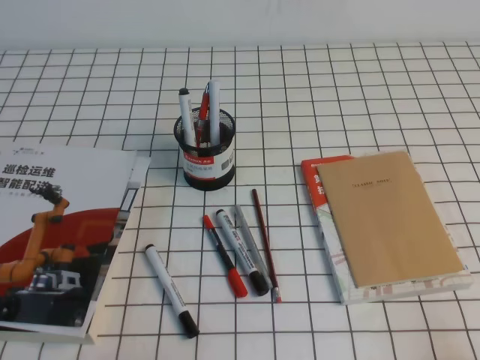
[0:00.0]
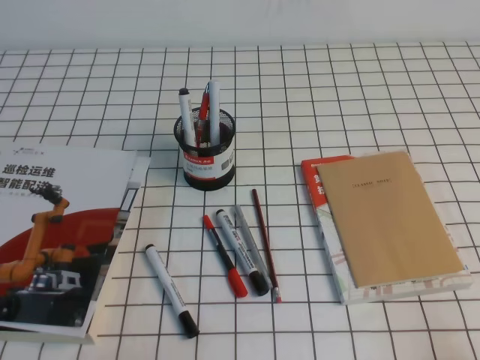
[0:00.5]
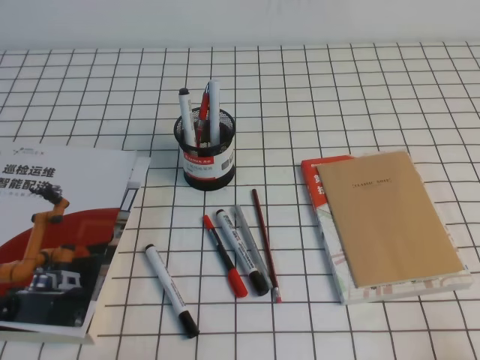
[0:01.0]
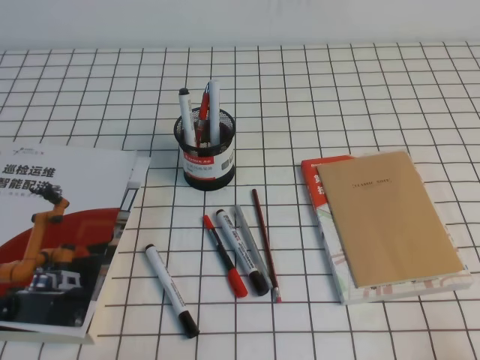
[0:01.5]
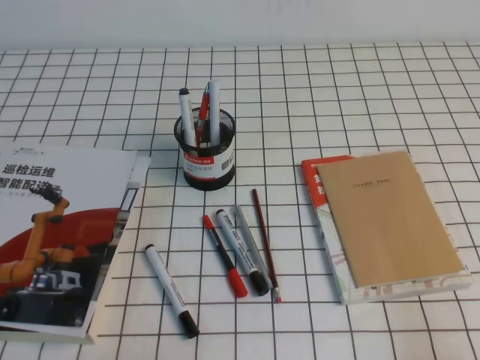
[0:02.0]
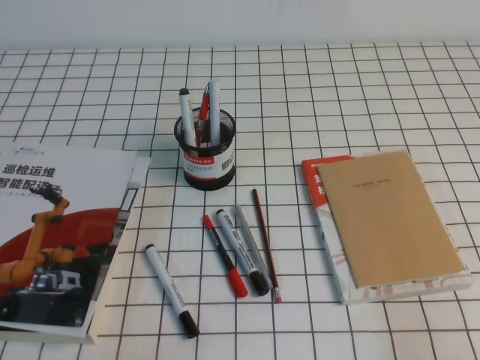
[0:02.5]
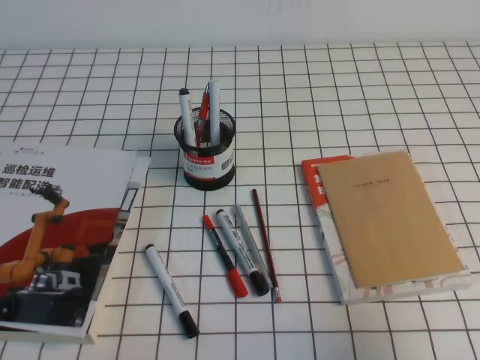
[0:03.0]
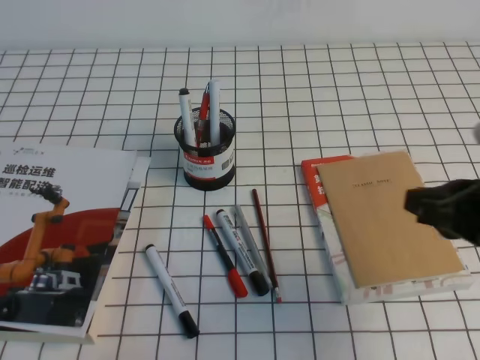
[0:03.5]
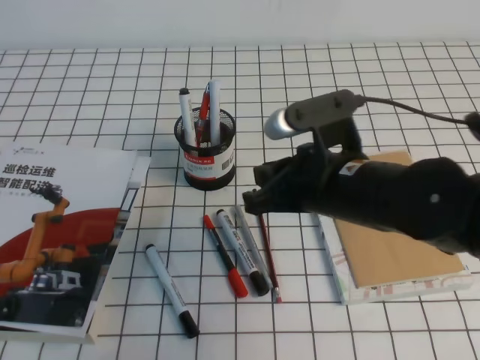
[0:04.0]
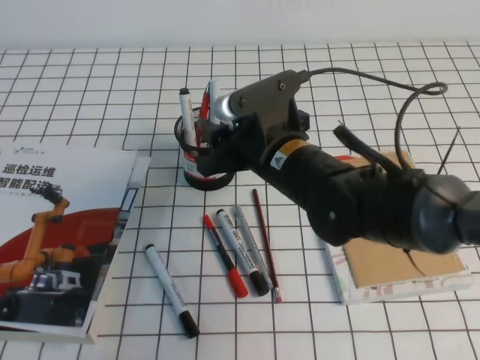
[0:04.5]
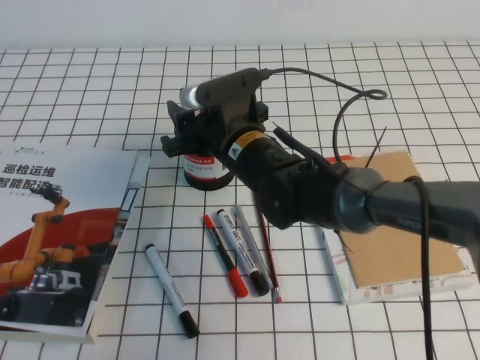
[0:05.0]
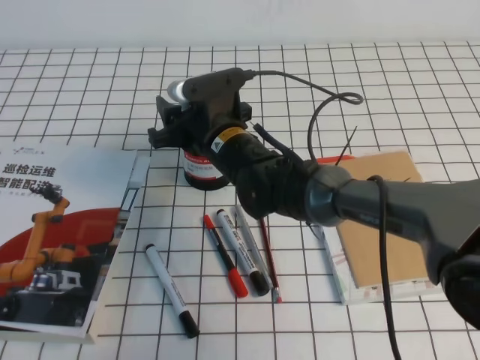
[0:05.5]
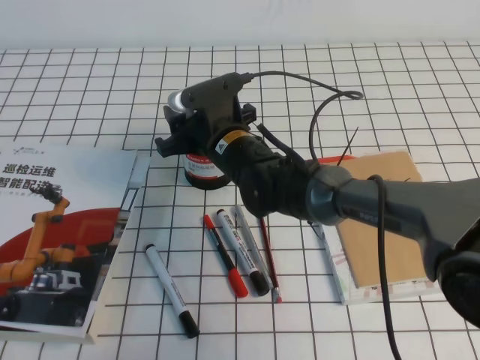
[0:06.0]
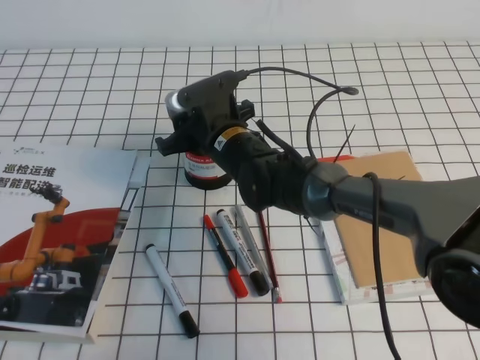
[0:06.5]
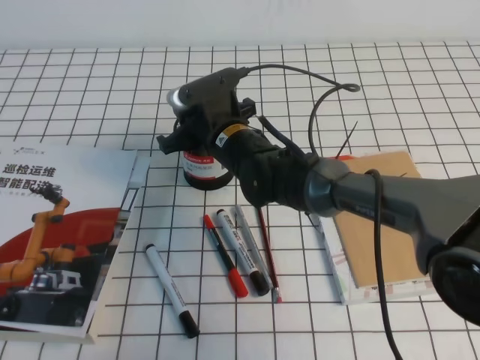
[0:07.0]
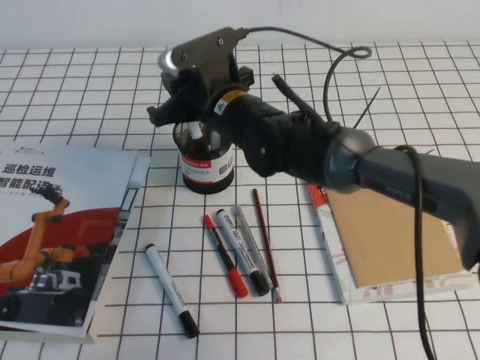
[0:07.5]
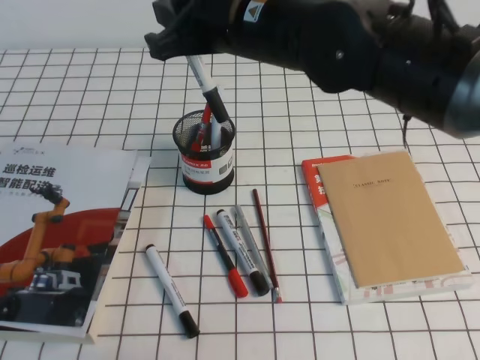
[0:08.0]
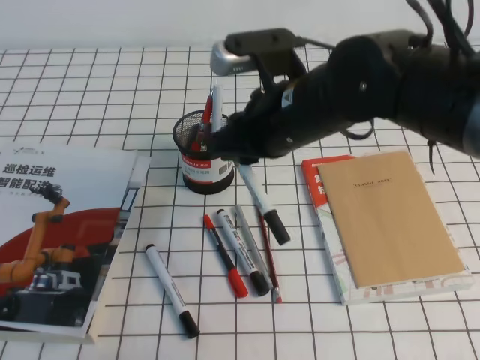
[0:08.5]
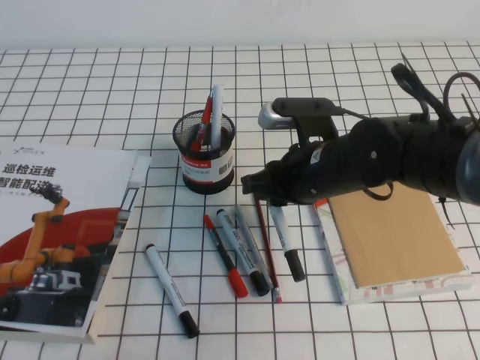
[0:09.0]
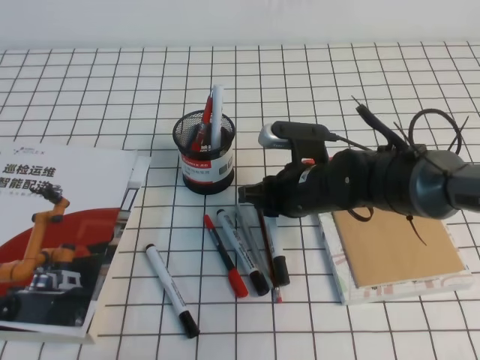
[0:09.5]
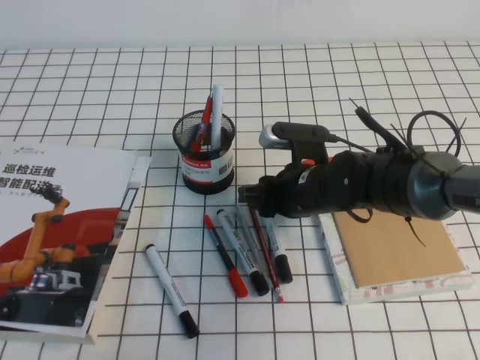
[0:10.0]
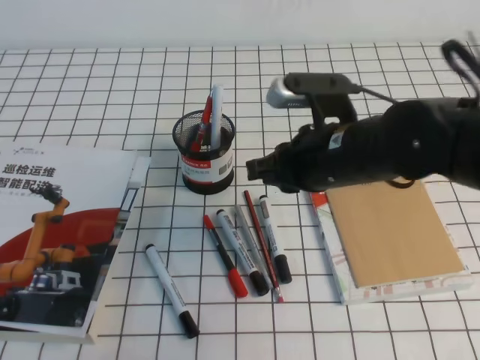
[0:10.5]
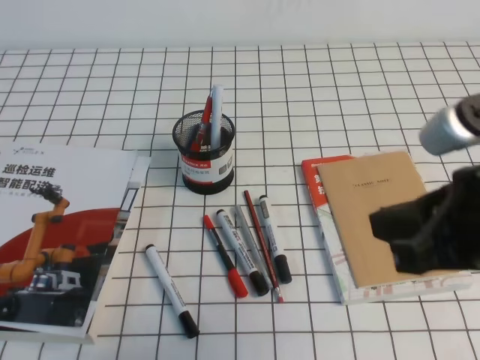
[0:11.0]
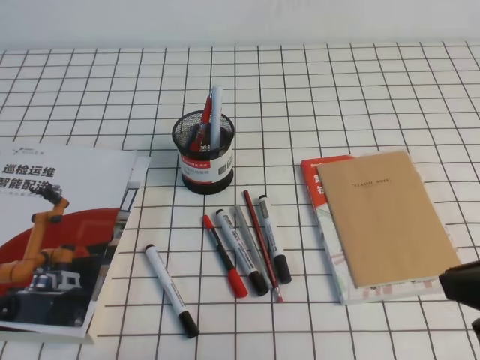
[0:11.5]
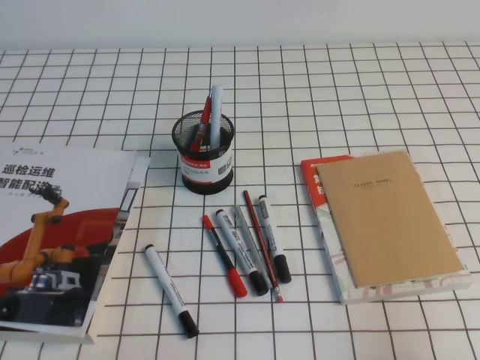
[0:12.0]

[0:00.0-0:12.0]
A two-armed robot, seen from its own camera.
0:02.0 to 0:04.0: The right gripper shifts roughly 30 cm to the left and forward.
0:04.0 to 0:06.0: The right gripper is displaced forward, to the left and downward by about 20 cm, and opens up.
0:06.0 to 0:08.0: The right gripper is displaced upward by about 15 cm, and closes.
0:08.0 to 0:10.0: The right gripper moves downward, some 20 cm.
0:10.0 to 0:12.0: The right gripper shifts about 35 cm backward and to the right, and closes up.

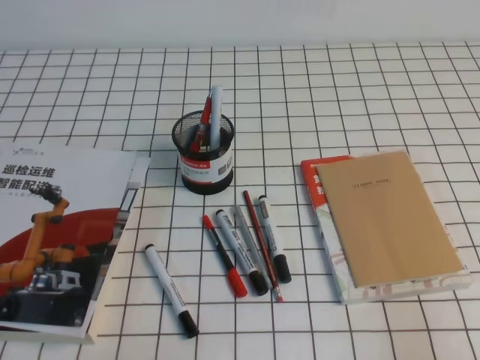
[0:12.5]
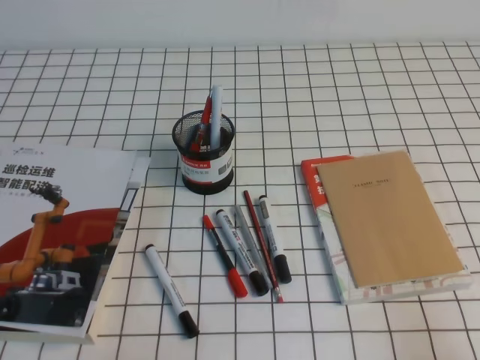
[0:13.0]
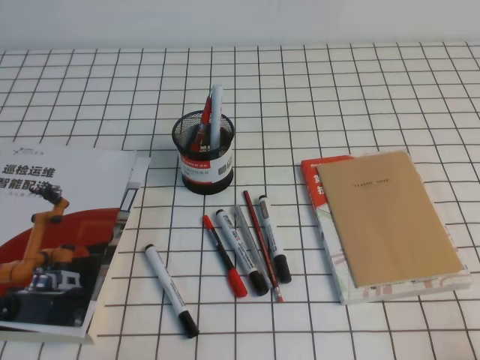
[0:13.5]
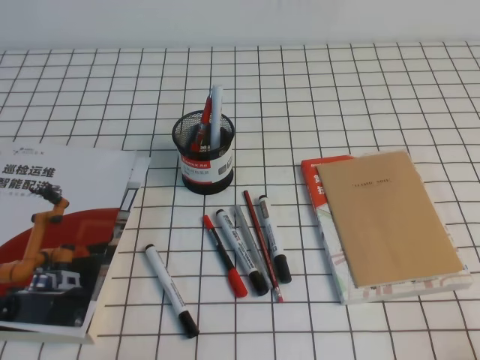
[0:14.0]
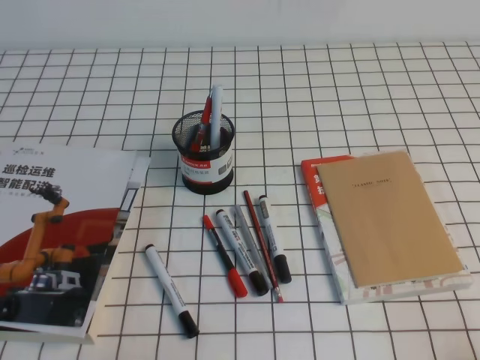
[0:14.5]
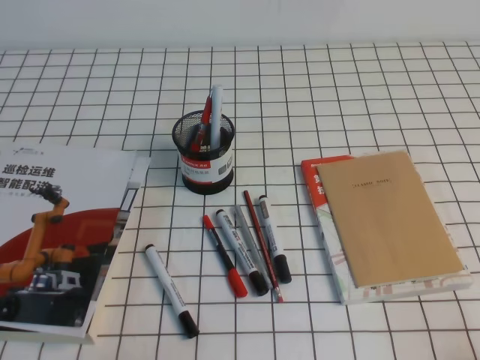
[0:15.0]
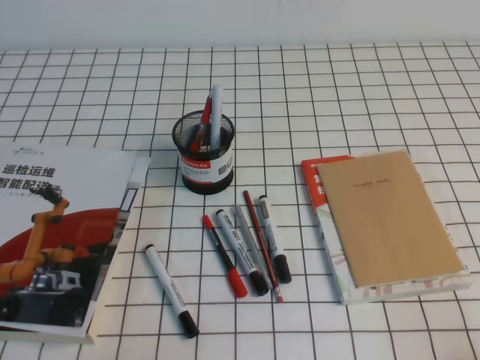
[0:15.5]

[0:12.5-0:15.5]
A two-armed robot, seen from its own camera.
0:14.0 to 0:15.5: Both grippers stay put.
